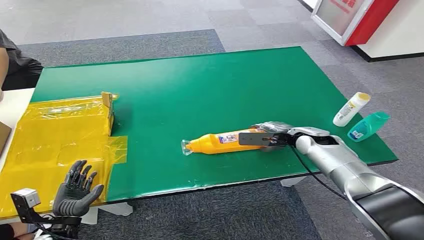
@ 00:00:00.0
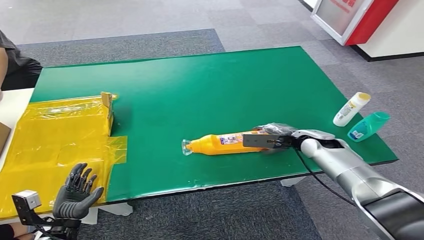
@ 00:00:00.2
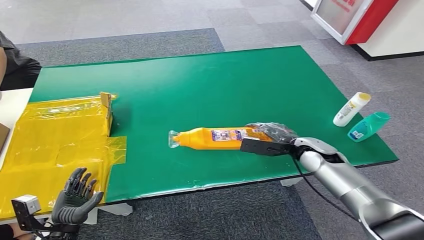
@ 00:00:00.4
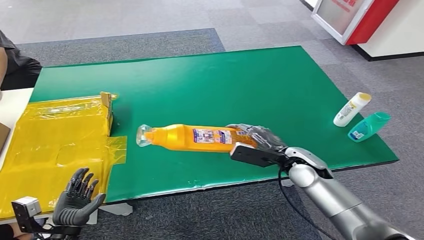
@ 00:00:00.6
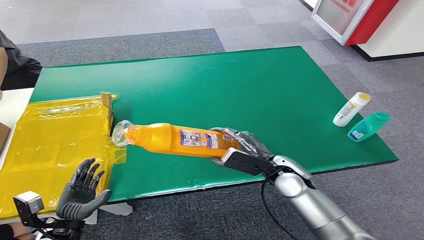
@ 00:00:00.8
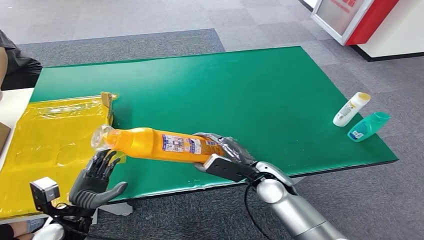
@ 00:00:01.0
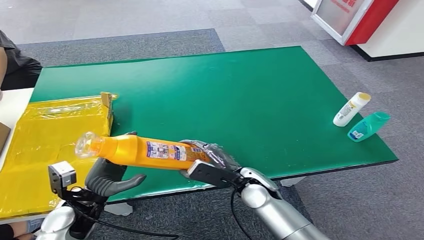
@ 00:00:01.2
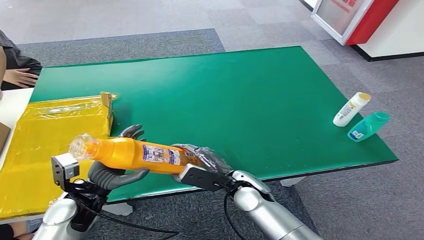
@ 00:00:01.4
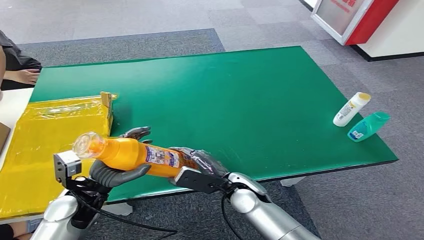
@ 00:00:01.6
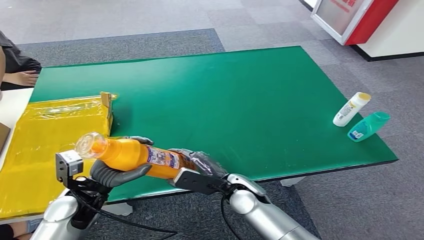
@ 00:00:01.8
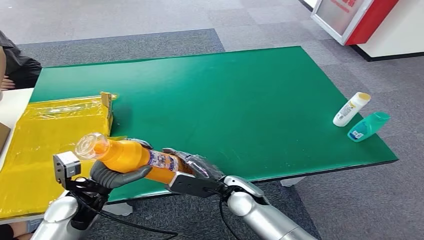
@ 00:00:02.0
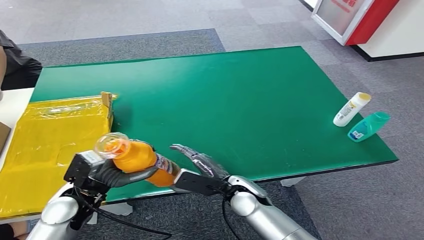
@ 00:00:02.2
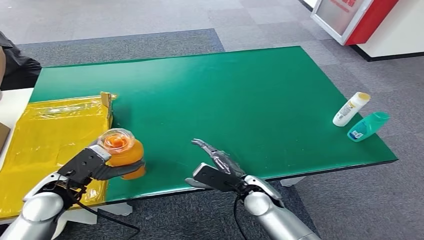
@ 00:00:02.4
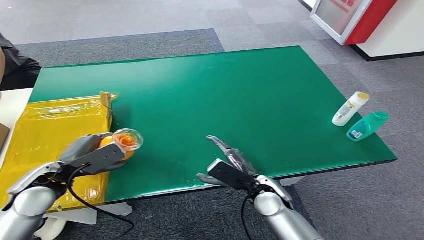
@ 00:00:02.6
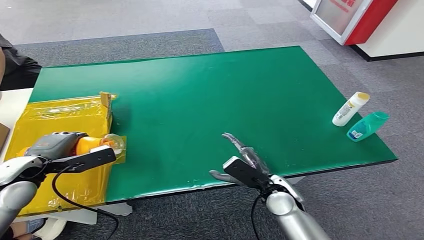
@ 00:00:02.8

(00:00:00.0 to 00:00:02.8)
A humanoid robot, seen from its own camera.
Step, 00:00:00.0 - 00:00:01.0: Pick up the bottle from the table.
Step, 00:00:01.2 - 00:00:02.8: Turn the bottle to the front side.
00:00:01.4 - 00:00:02.8: The left hand travels to the left, upward and forward by about 15 cm. The right hand is displaced to the right by about 5 cm.
